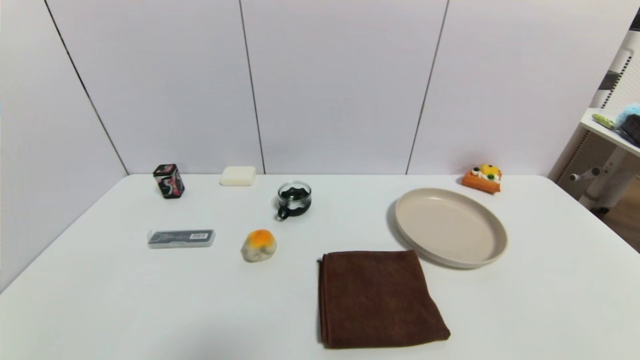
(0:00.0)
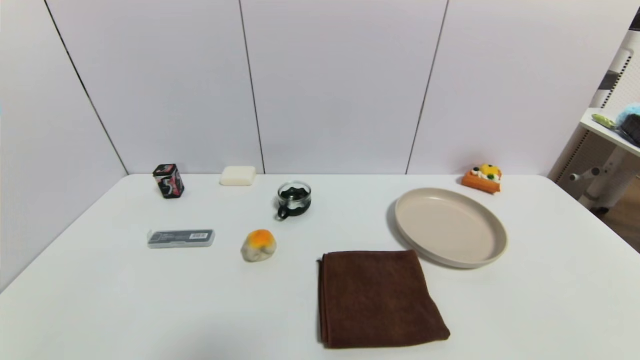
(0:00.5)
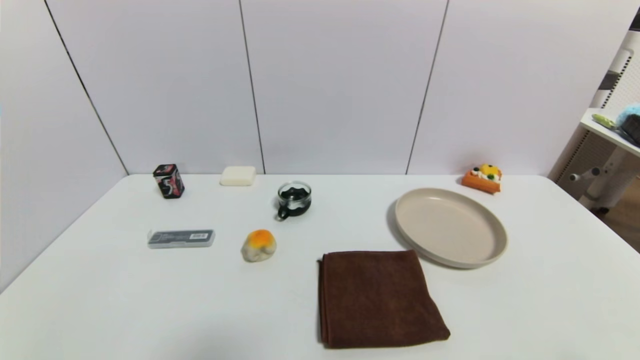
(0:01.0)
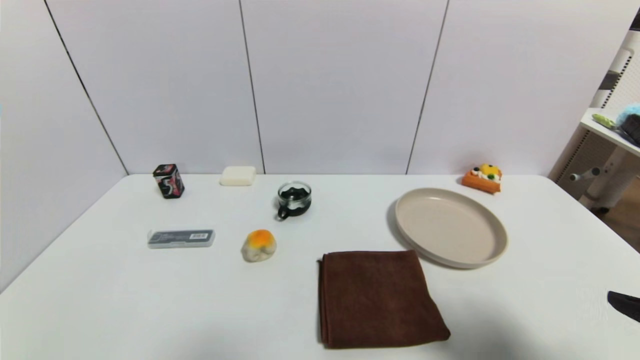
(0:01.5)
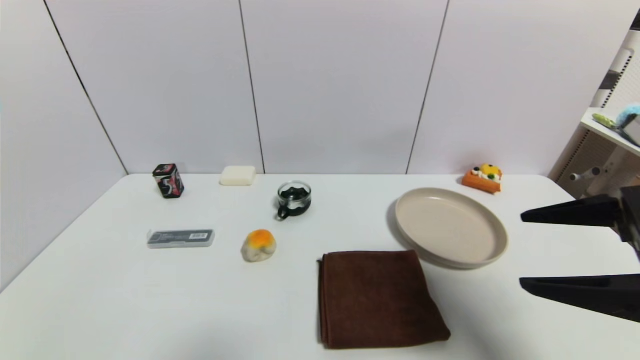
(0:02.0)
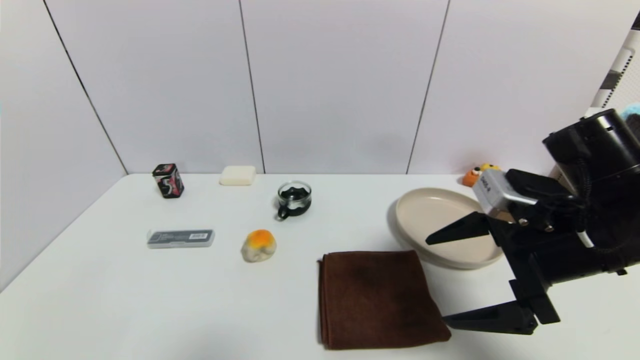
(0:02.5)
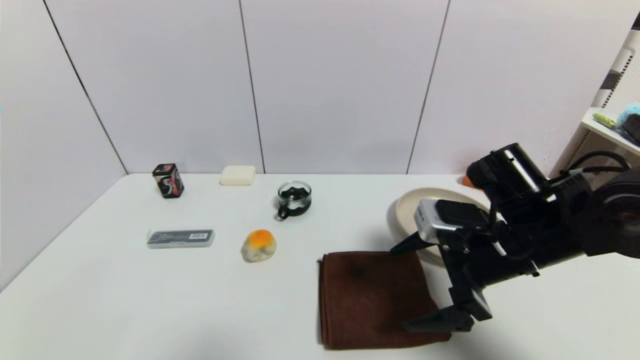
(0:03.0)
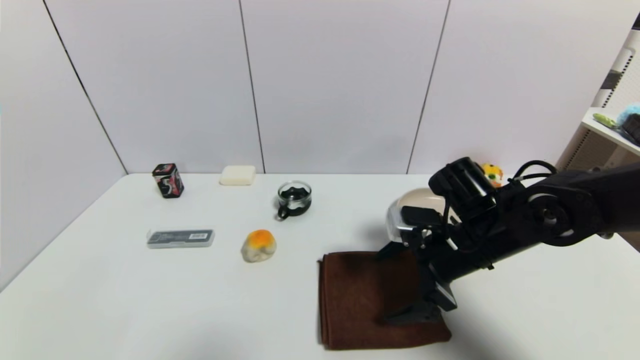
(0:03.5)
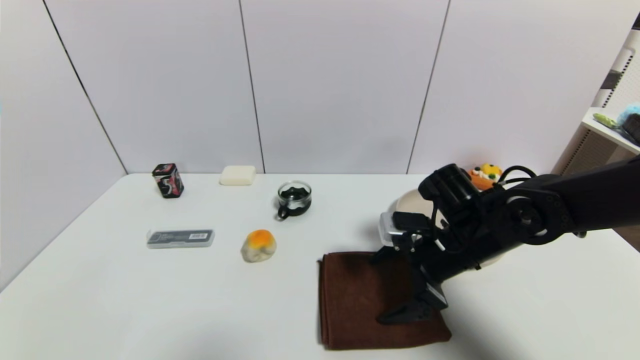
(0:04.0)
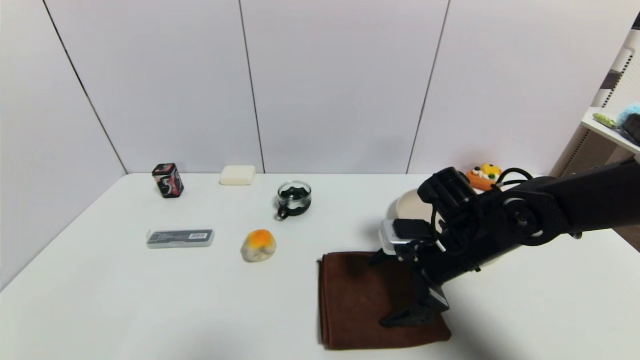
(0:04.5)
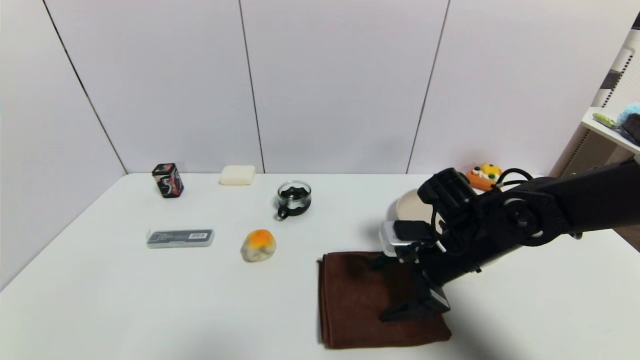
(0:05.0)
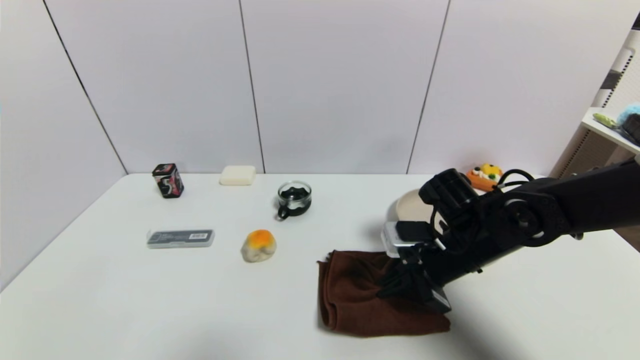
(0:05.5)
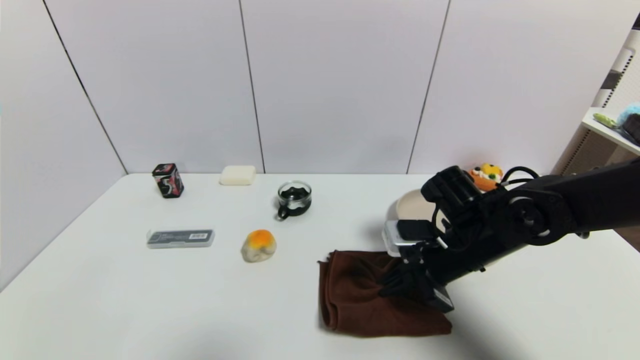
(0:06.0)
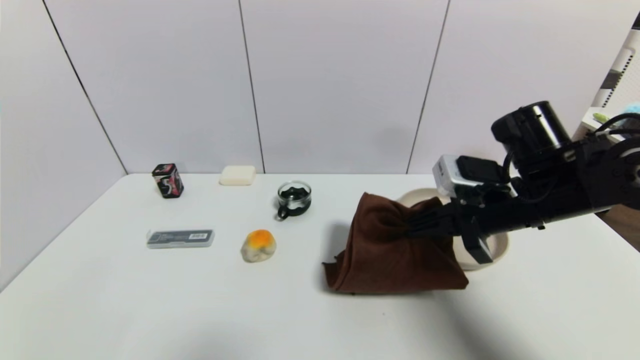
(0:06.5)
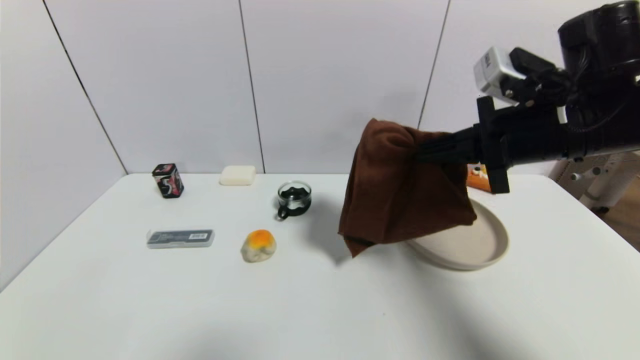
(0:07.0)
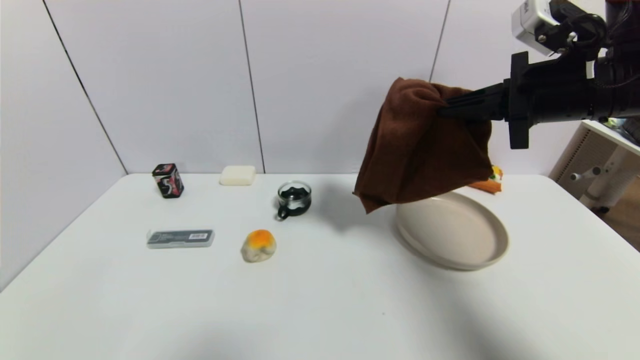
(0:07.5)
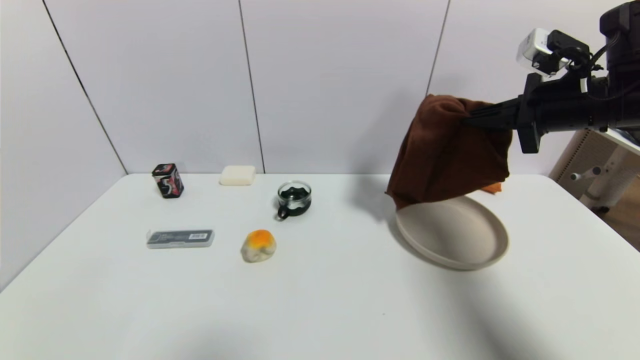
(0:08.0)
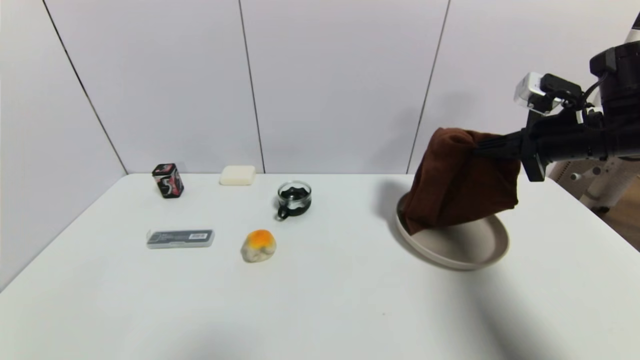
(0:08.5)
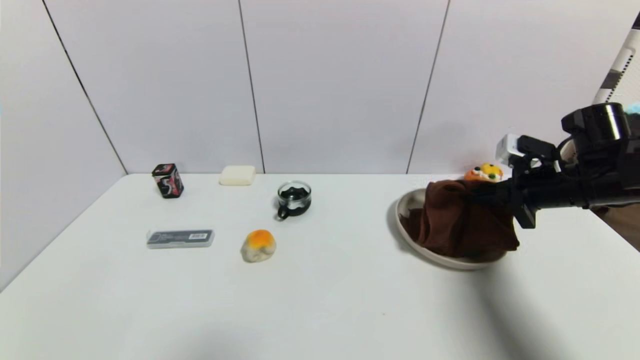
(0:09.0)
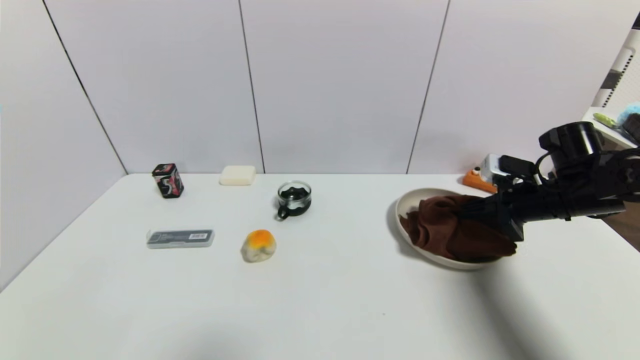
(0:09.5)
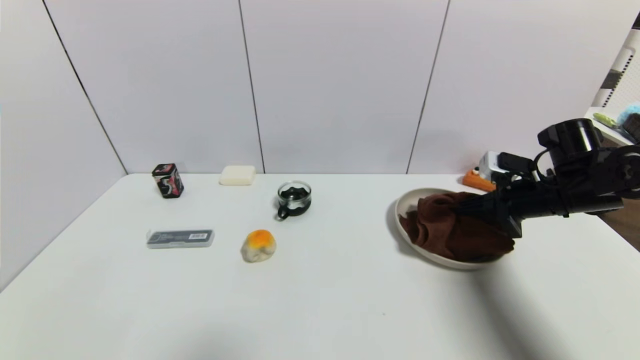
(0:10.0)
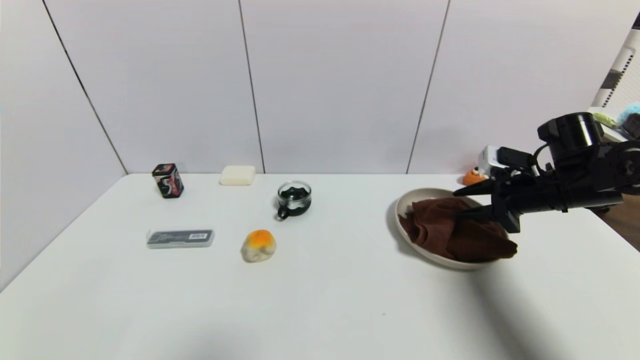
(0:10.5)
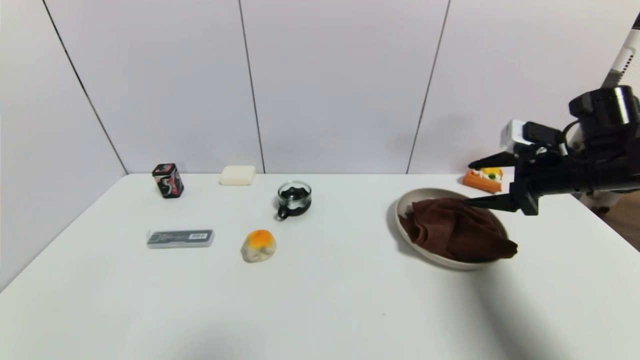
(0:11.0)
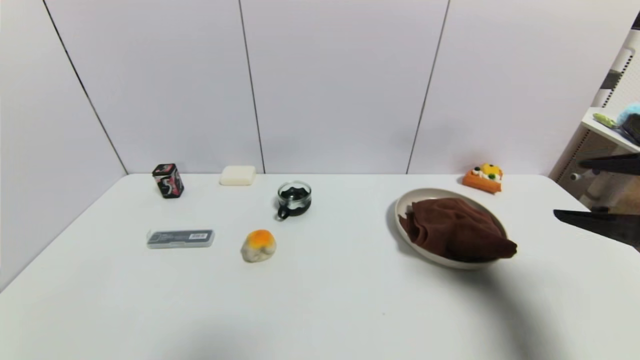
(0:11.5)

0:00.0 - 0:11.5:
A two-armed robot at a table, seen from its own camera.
Task of the whole recording: use a gripper to pick the target object and place on the brown plate.
Step, 0:00.0 - 0:06.0: Grasp the brown towel with the right gripper.
Step, 0:06.5 - 0:10.5: Place the brown towel on the brown plate with the right gripper.
0:00.0 - 0:02.0: The right gripper moves upward and forward, roughly 25 cm.
0:02.0 - 0:04.0: The right gripper travels forward, downward and to the left by approximately 25 cm.
0:04.0 - 0:06.0: The right gripper closes up.
0:06.0 - 0:07.5: The right gripper travels upward by some 20 cm.
0:07.5 - 0:09.5: The right gripper moves downward and to the right, approximately 20 cm.
0:09.5 - 0:11.5: The right gripper shifts approximately 20 cm backward and upward, and opens.

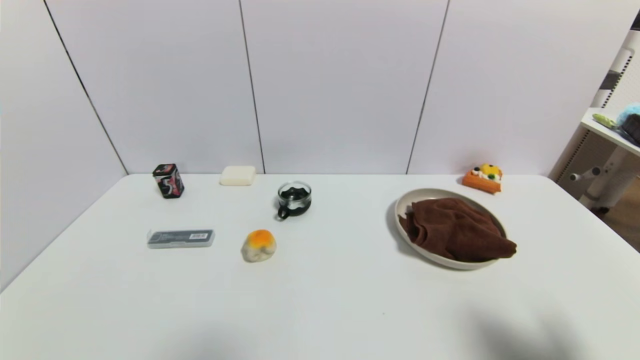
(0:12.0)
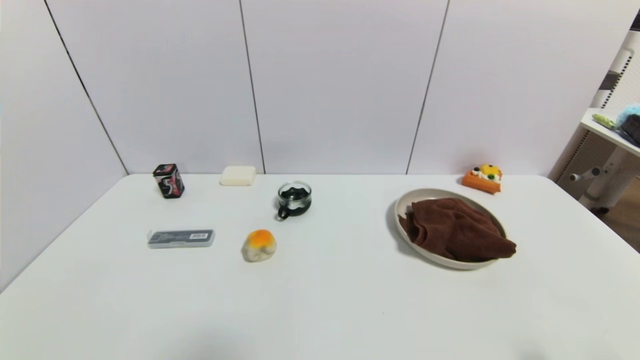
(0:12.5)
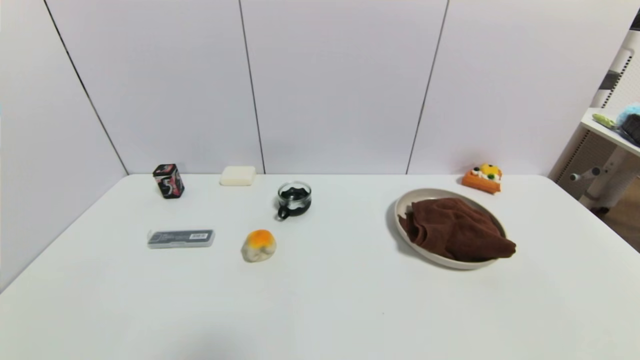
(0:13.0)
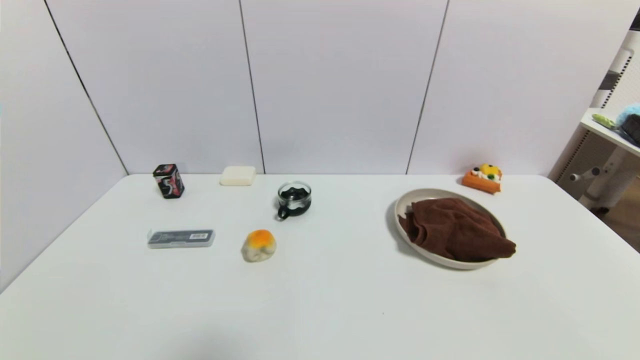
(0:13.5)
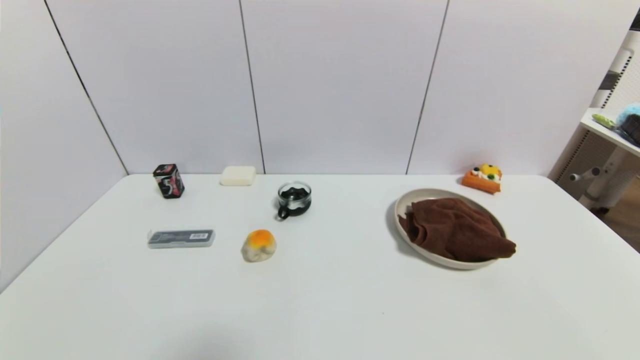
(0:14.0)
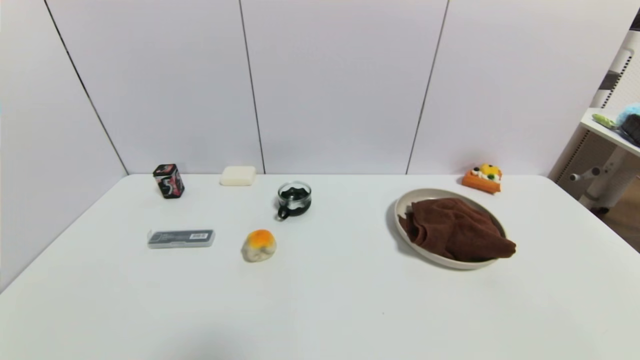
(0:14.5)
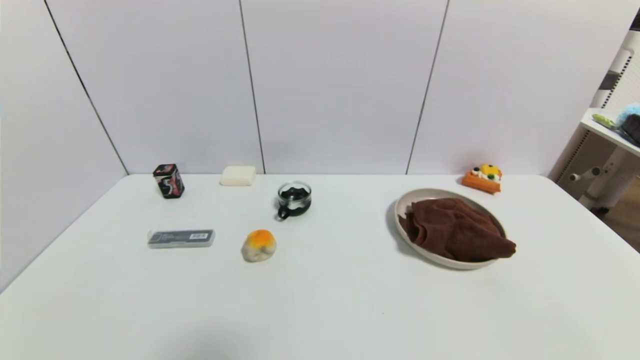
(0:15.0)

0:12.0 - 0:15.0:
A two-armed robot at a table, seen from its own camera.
Task of the whole recording: use a gripper to pick the target object and place on the brown plate.
0:12.0 - 0:13.5: The right gripper heads downward and backward, covering roughly 15 cm.
